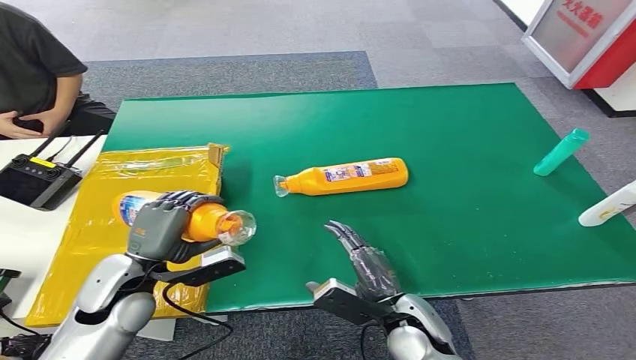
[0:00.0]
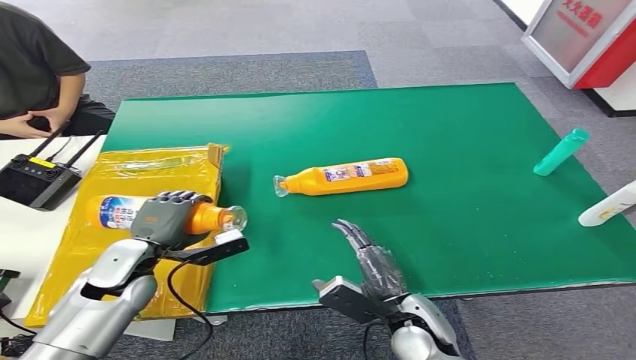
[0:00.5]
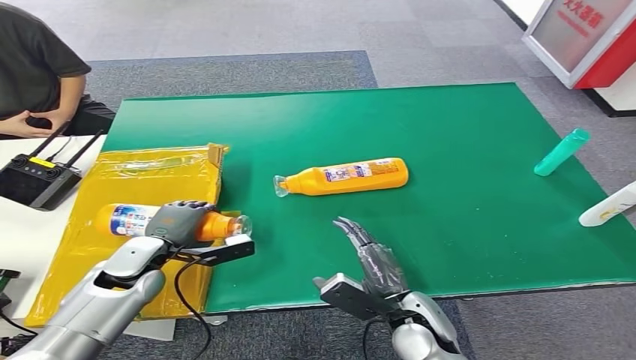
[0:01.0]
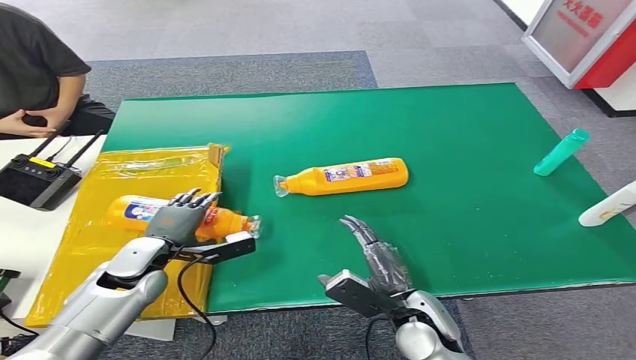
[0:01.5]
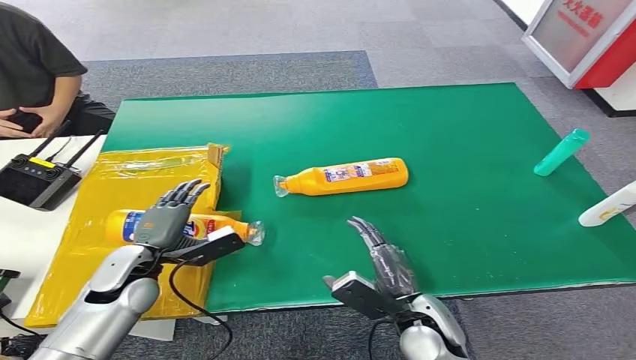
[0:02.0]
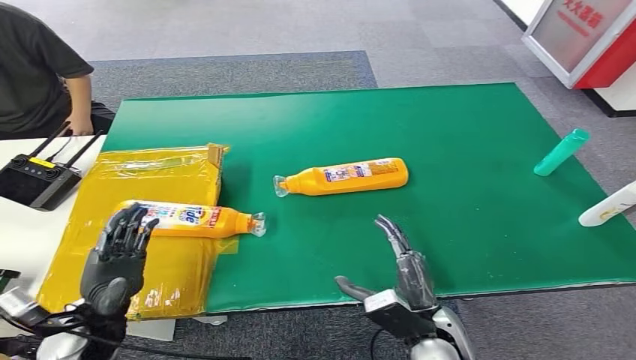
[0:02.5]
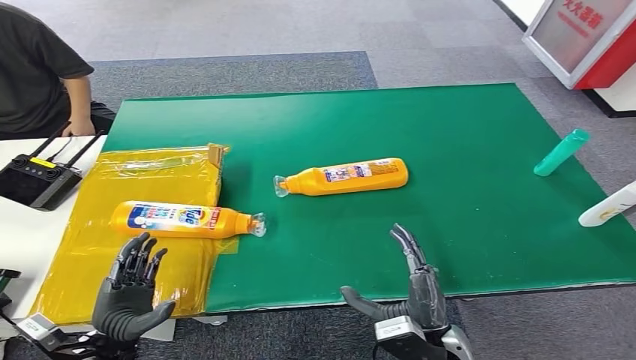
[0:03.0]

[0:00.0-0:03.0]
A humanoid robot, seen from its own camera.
Step, 0:00.0 to 0:03.0: Turn the bottle to the front side.
0:00.0 to 0:01.5: The left hand travels forward and downward by some 10 cm.
0:01.5 to 0:03.0: The left hand is displaced backward by some 15 cm; the right hand travels backward by approximately 5 cm.

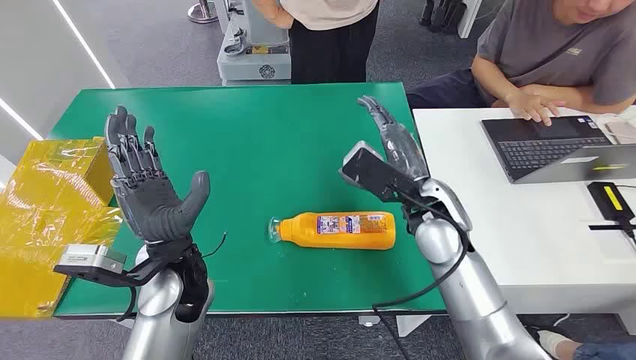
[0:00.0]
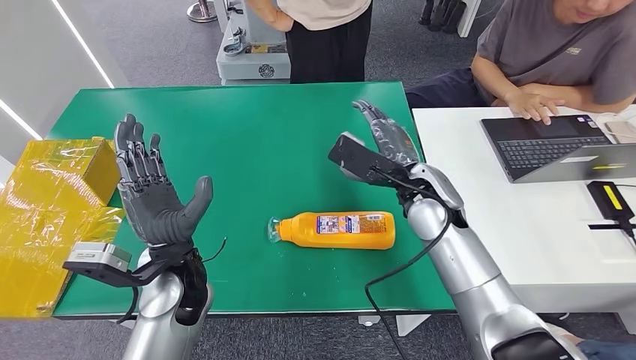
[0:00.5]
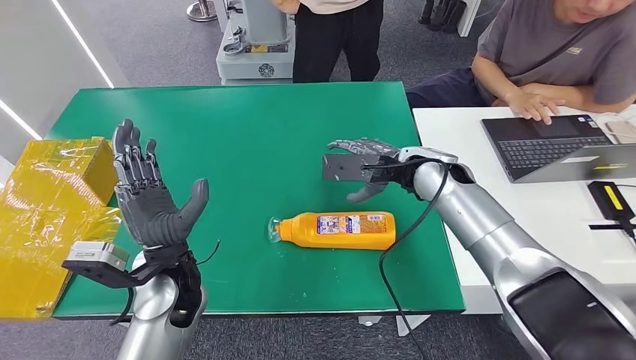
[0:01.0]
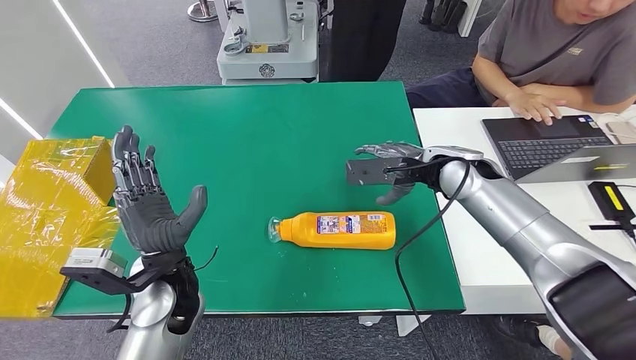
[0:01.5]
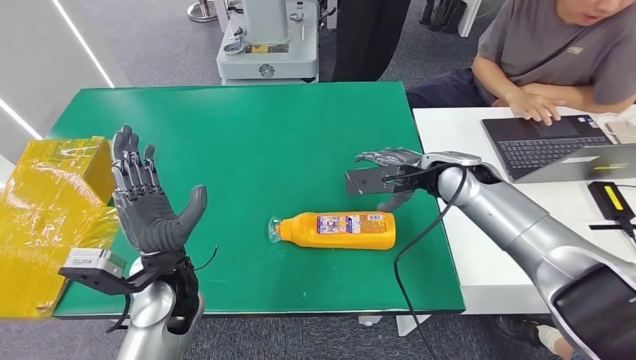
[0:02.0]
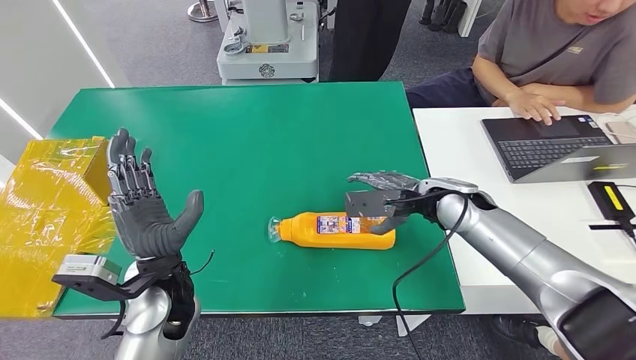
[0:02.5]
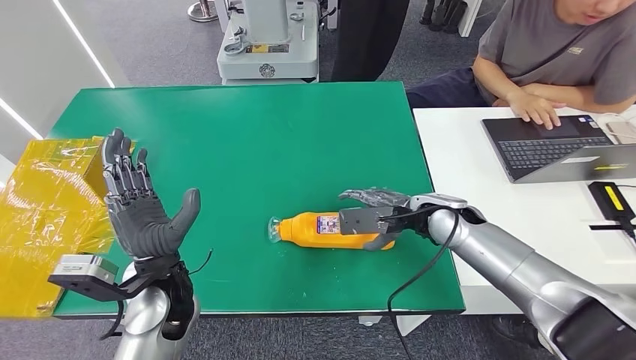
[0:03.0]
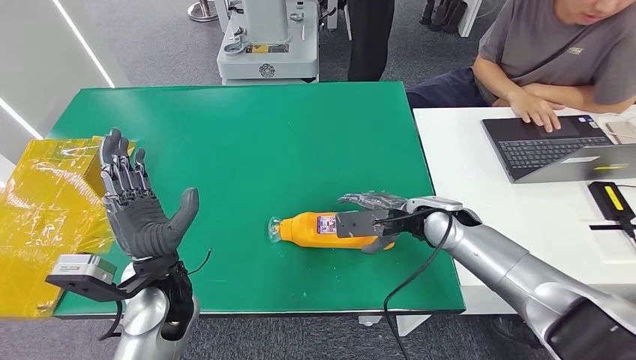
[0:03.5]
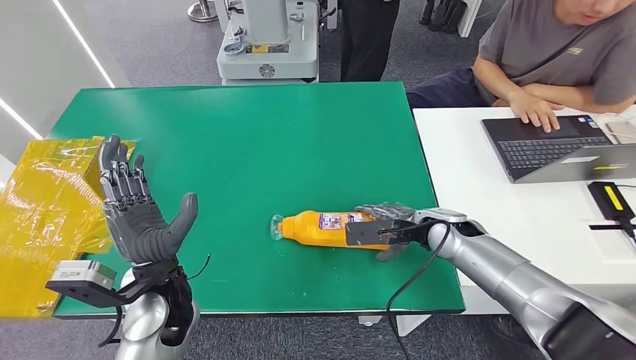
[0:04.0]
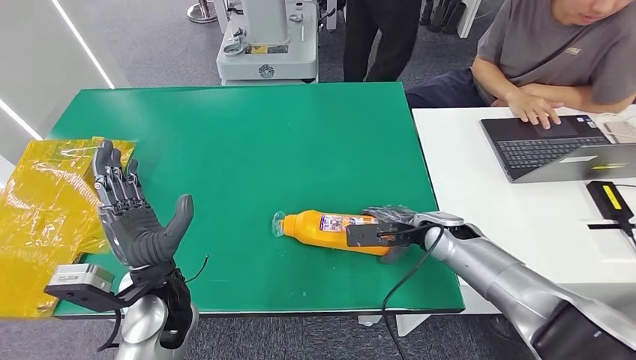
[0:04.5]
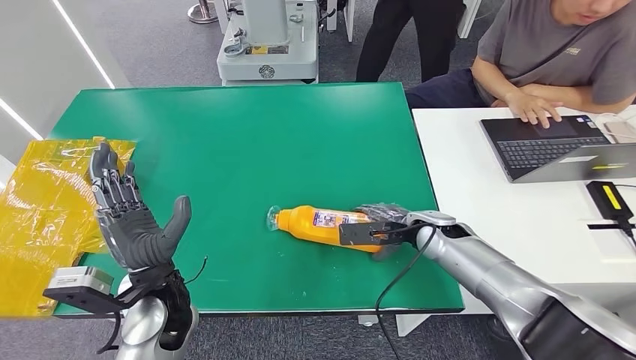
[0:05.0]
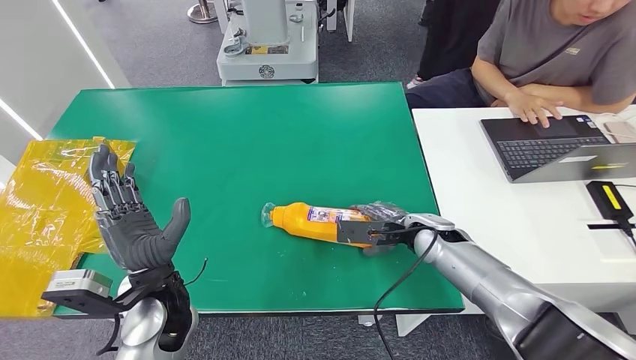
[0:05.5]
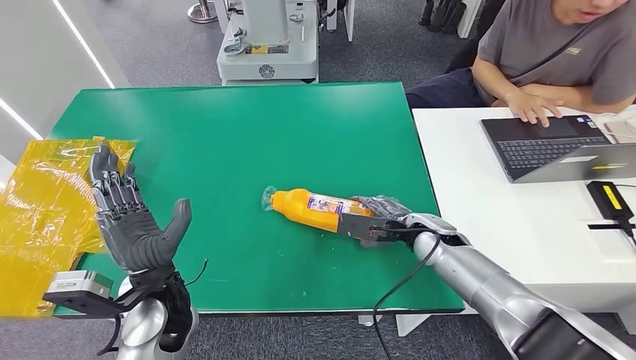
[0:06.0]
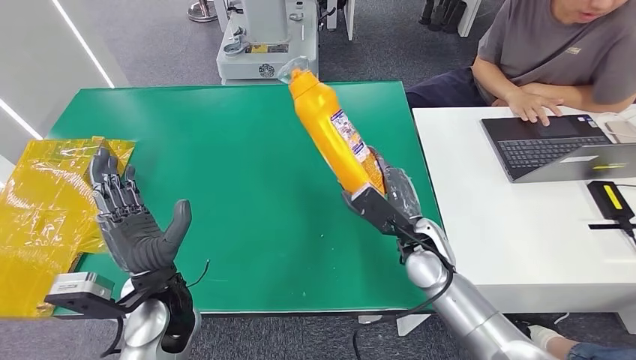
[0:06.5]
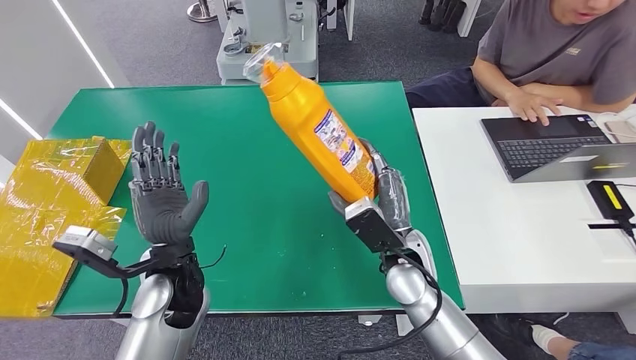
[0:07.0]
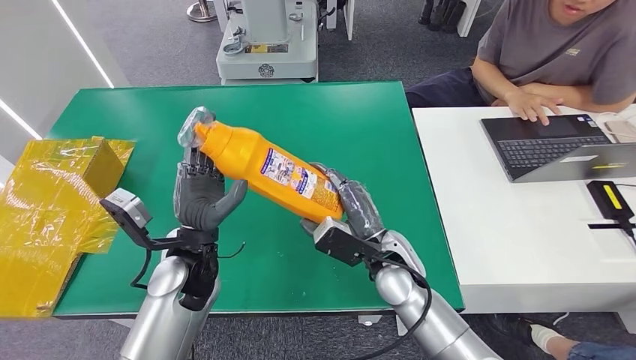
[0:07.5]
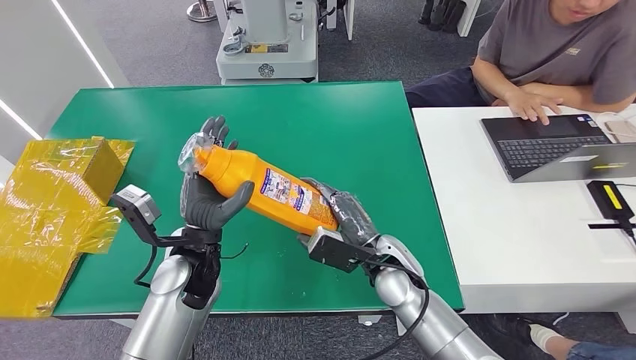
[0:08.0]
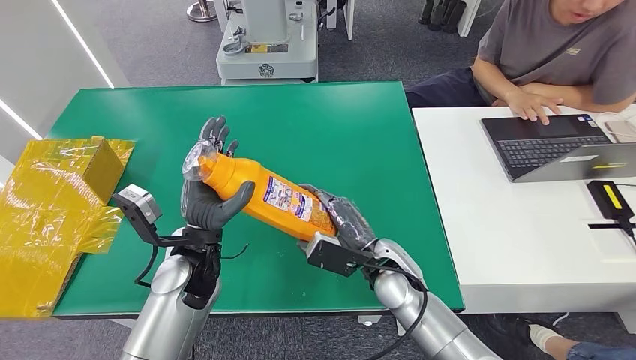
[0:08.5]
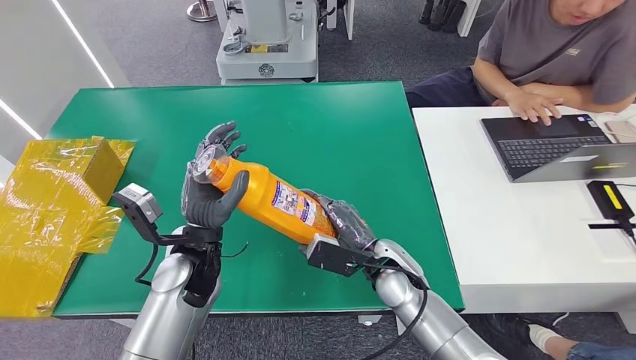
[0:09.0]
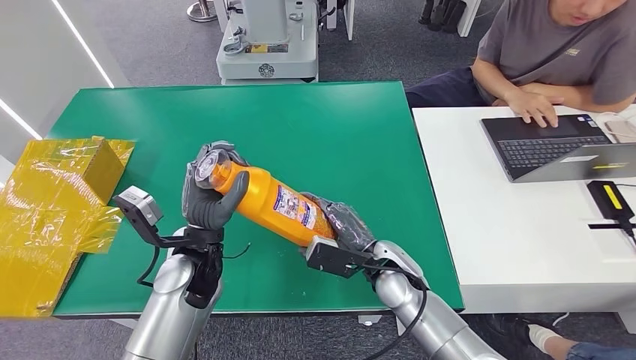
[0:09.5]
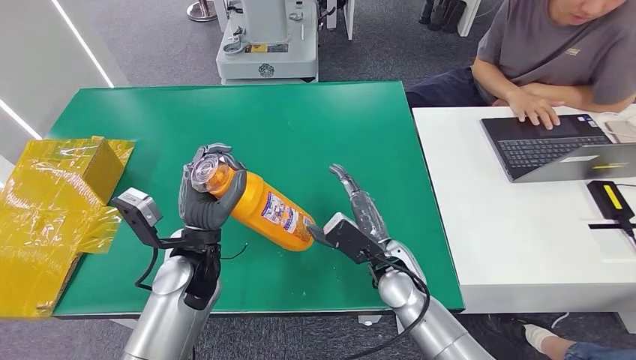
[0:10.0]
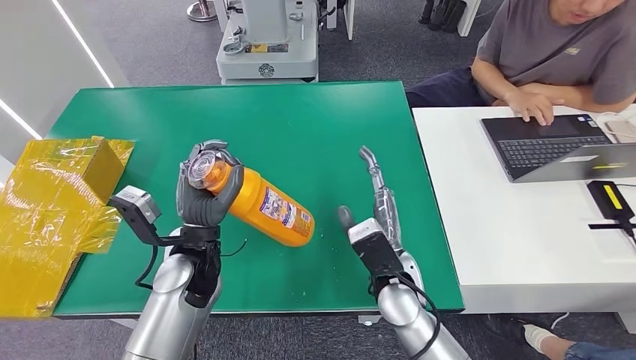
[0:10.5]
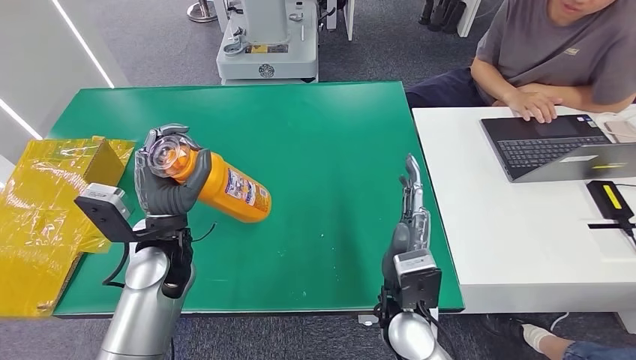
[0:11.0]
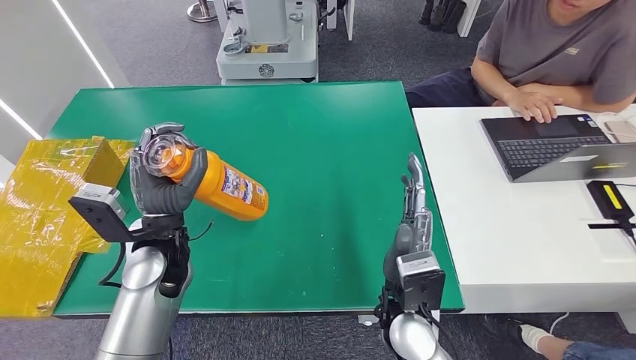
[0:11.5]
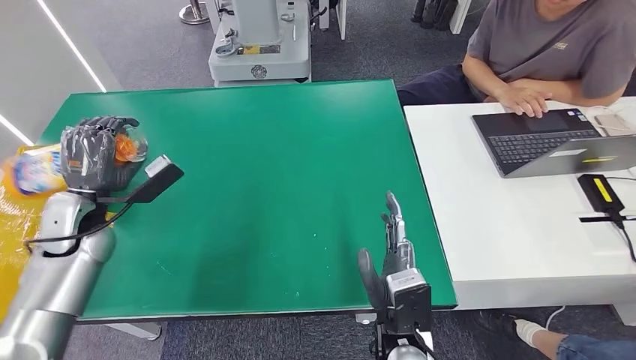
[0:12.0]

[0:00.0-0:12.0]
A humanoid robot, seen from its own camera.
Step, 0:00.0 to 0:07.5: Pick up the bottle from the table.
0:02.0 to 0:04.0: The right hand travels downward by approximately 10 cm.
0:04.0 to 0:06.0: There are only small adjustments of the hands.
0:08.0 to 0:10.0: The hands make only small movements.

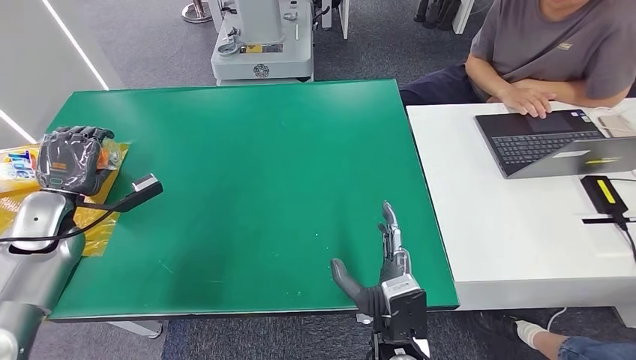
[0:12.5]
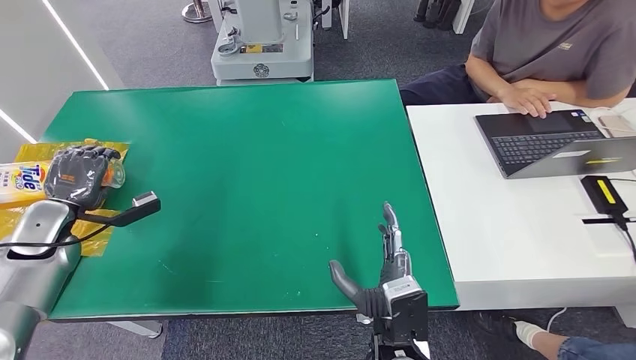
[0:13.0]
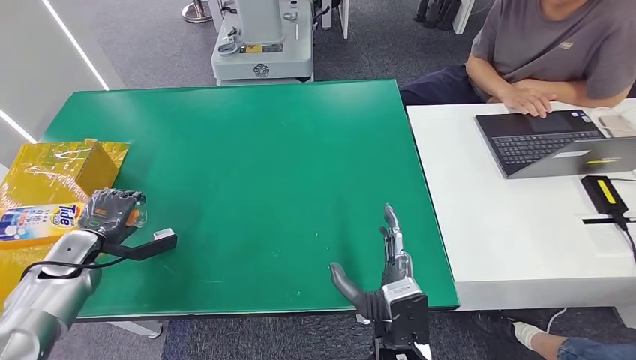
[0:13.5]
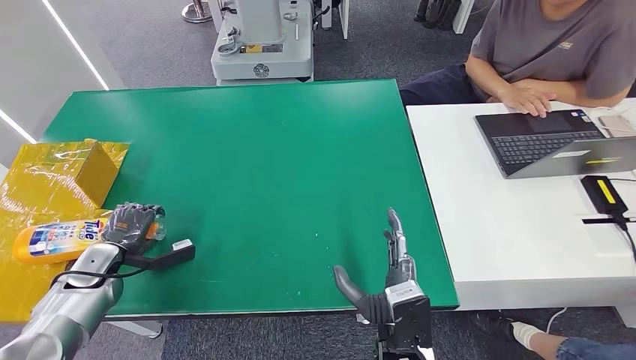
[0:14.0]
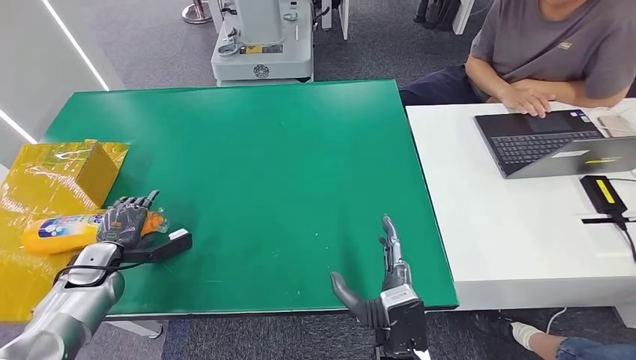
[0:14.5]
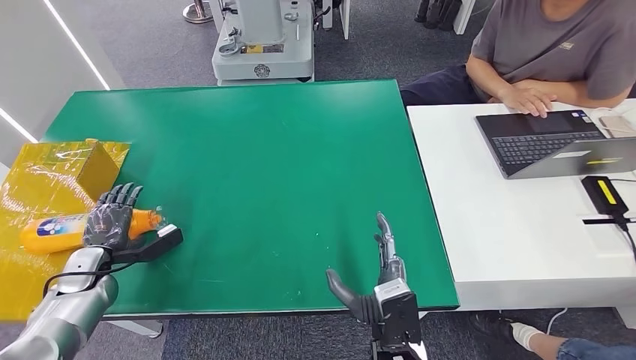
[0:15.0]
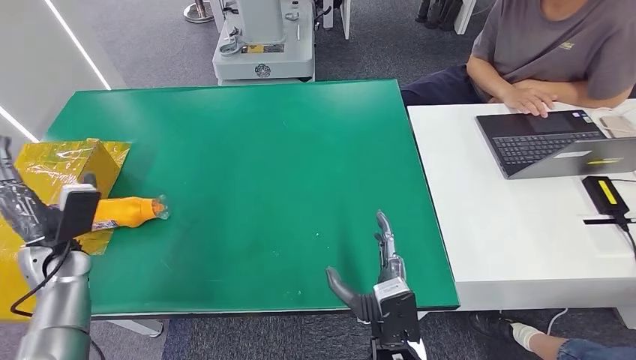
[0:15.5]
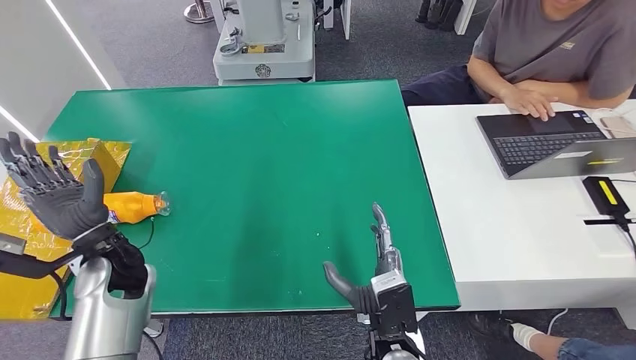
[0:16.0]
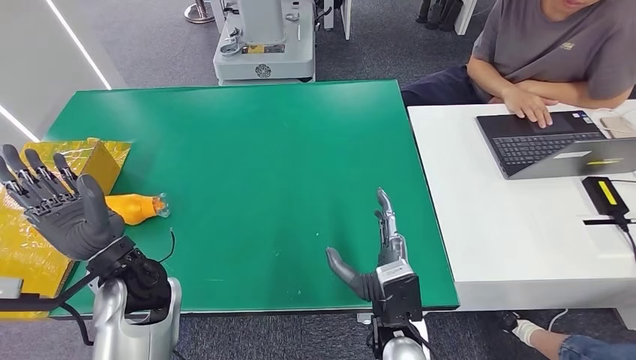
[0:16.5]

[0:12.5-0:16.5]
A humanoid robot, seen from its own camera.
Step, 0:12.5 to 0:16.5: Turn the bottle to the front side.
0:12.5 to 0:14.5: The left hand goes some 10 cm downward.
0:14.5 to 0:16.5: The left hand moves to the right and upward, about 25 cm.
